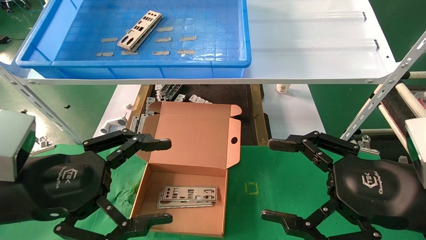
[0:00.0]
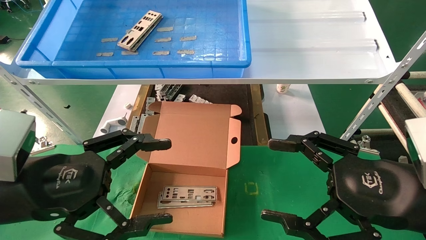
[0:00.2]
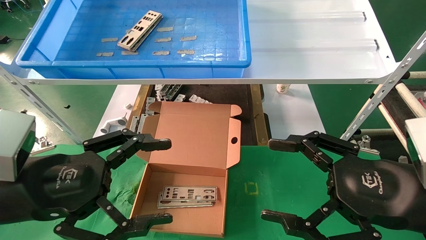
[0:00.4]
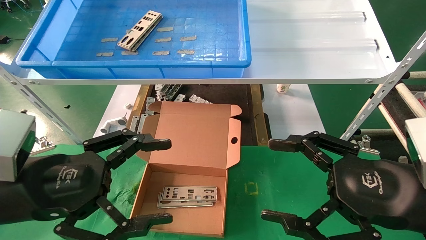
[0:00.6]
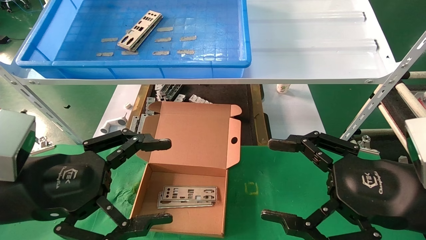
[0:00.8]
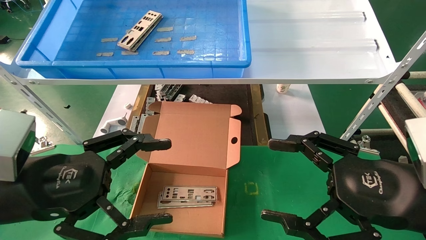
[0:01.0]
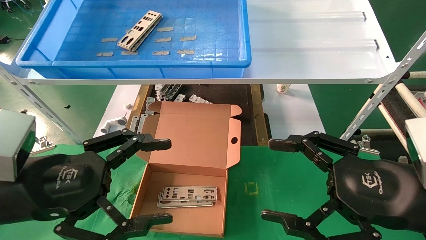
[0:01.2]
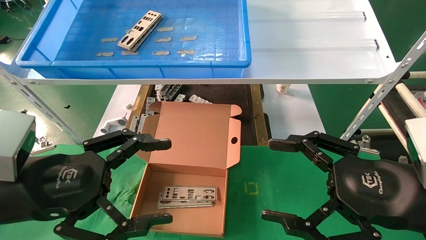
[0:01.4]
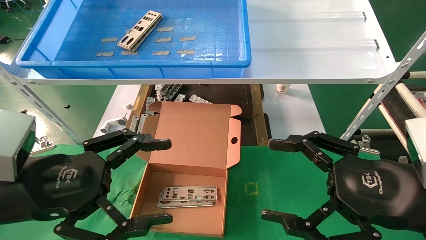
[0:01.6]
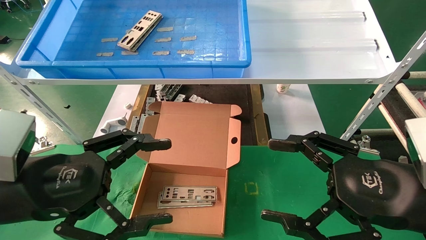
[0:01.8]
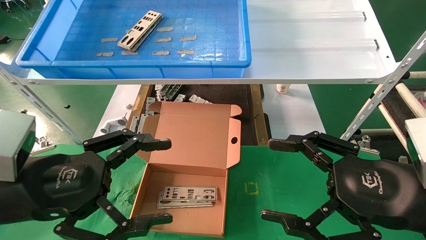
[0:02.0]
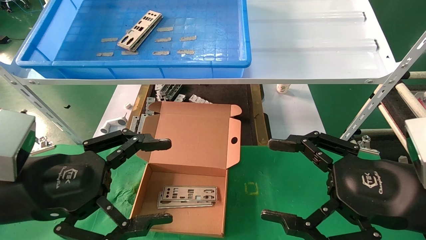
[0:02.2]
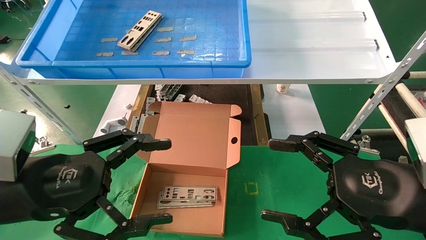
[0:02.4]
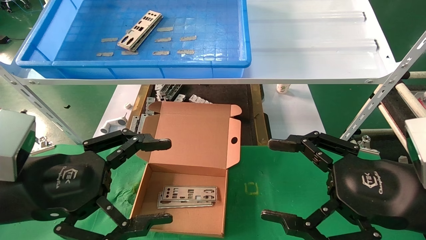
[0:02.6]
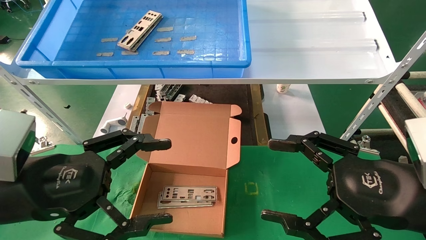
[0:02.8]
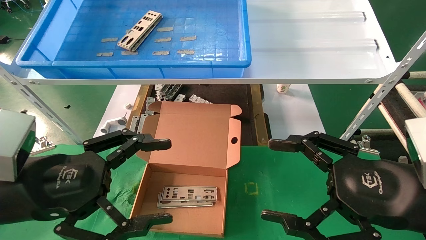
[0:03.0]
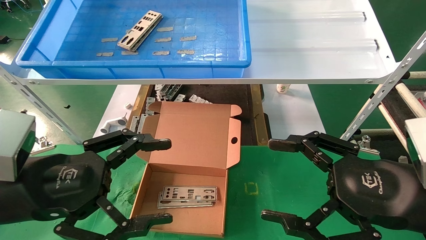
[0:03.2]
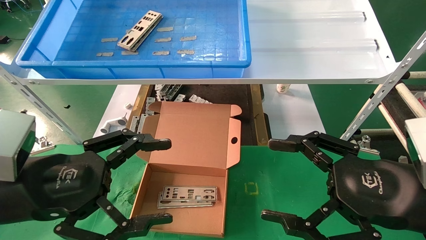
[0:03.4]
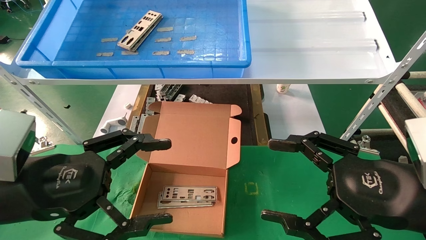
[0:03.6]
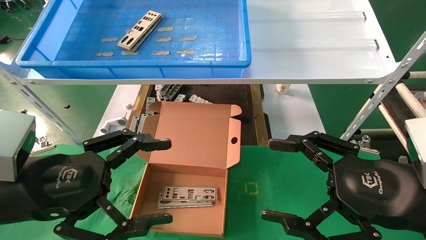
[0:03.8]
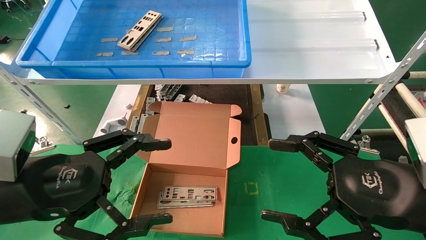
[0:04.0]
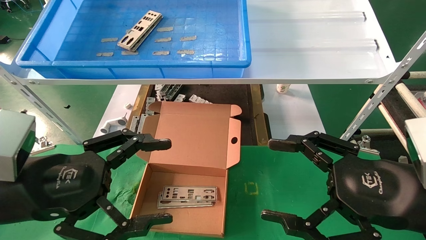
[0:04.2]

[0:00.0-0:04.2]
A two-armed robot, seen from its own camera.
Task of the whole recording: pick up the parts on the tray and put them in the cardboard box.
0:00.0 to 0:04.2: Both grippers stay put.
